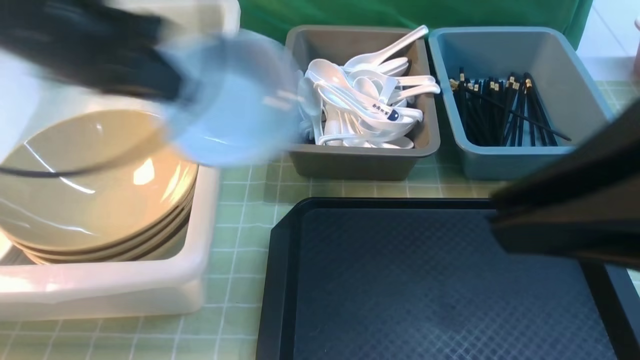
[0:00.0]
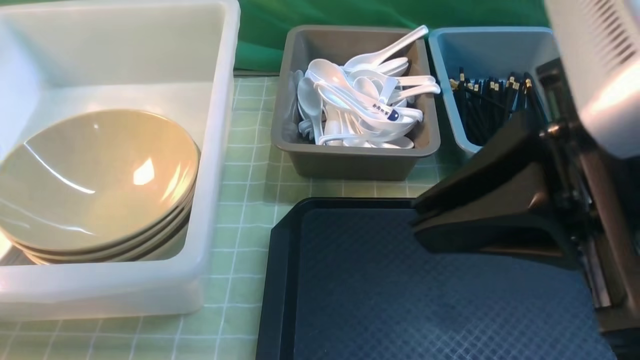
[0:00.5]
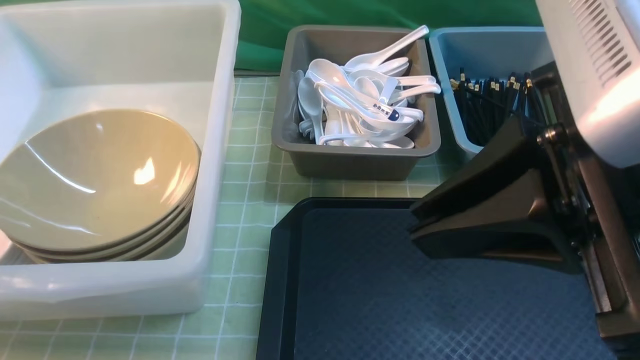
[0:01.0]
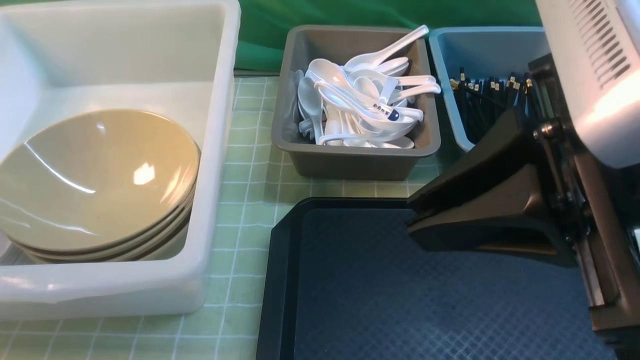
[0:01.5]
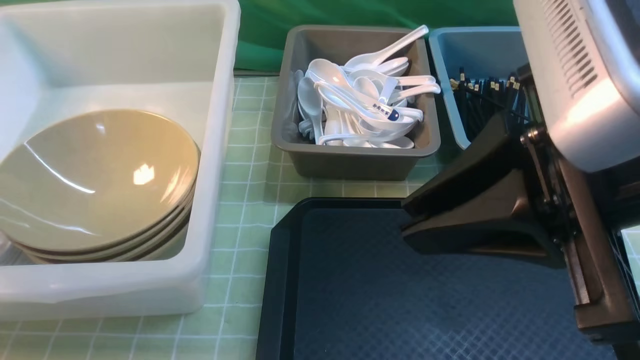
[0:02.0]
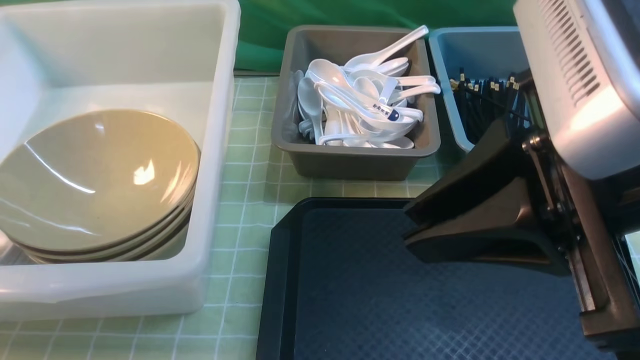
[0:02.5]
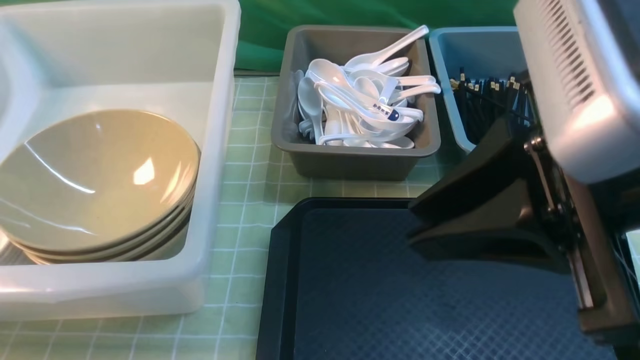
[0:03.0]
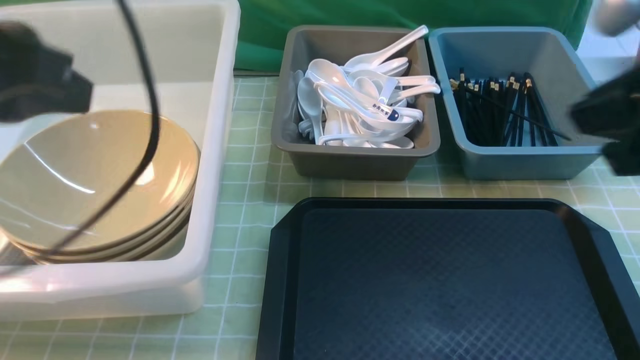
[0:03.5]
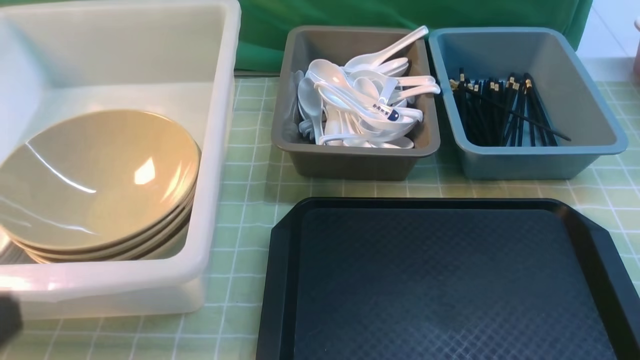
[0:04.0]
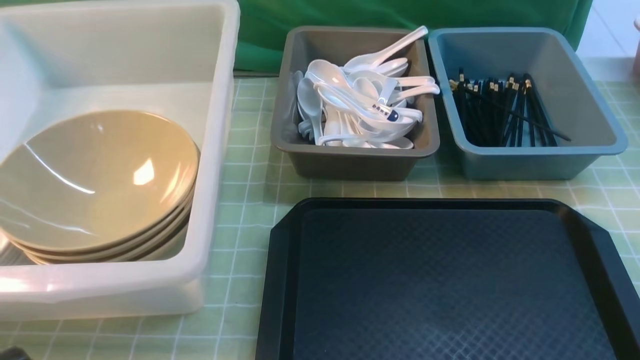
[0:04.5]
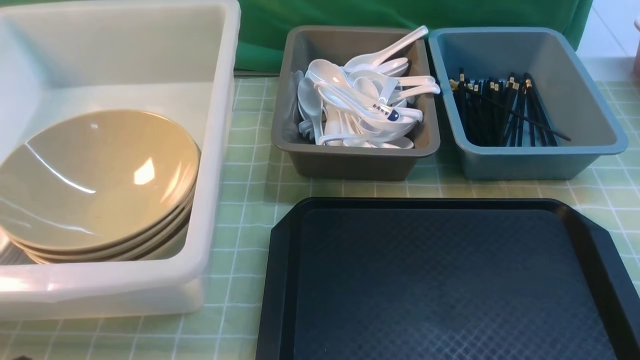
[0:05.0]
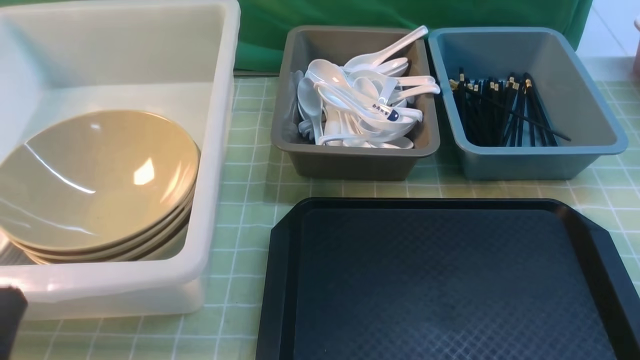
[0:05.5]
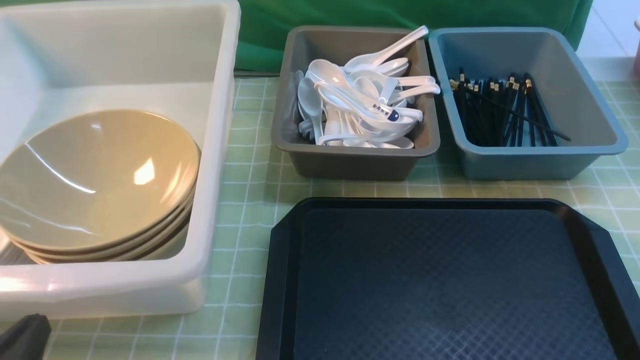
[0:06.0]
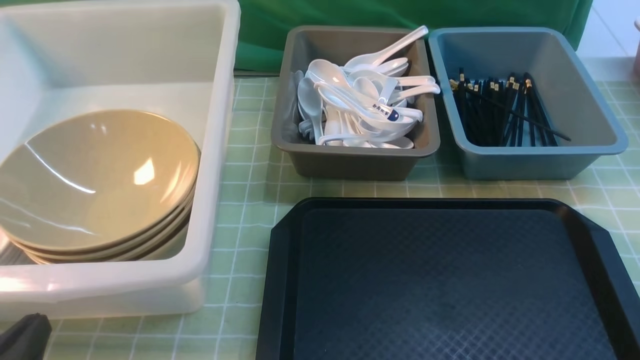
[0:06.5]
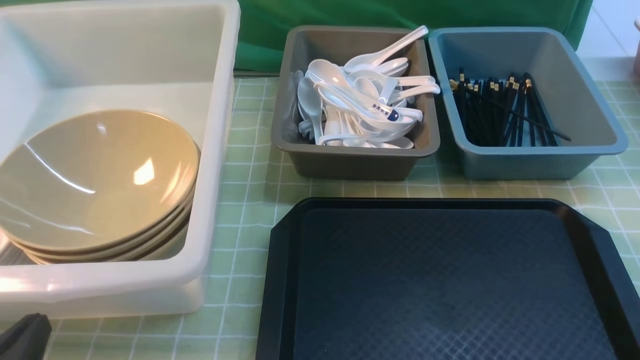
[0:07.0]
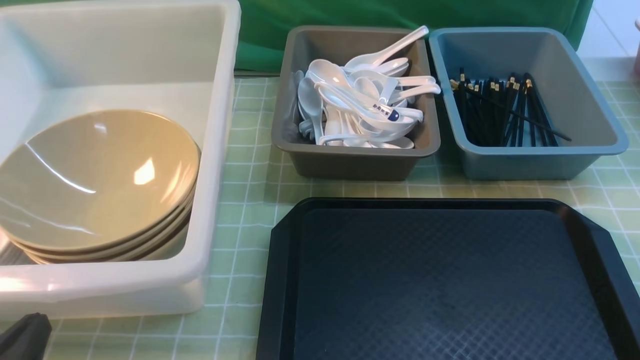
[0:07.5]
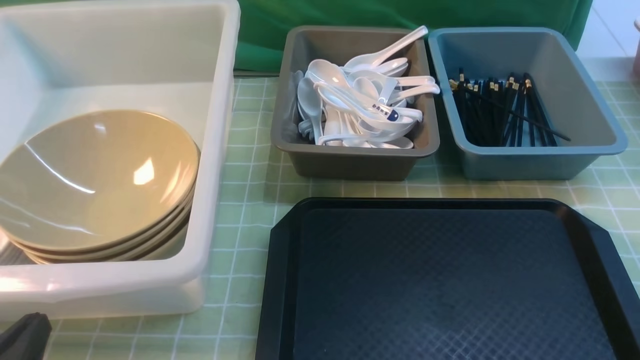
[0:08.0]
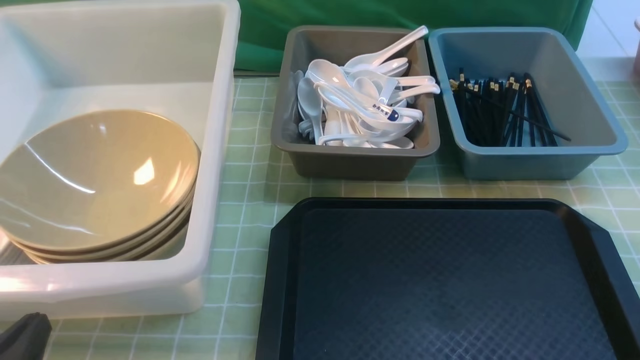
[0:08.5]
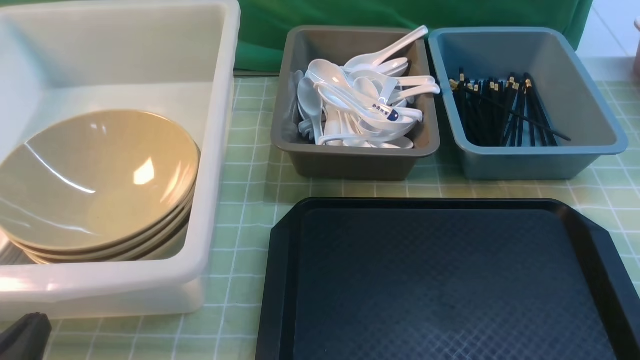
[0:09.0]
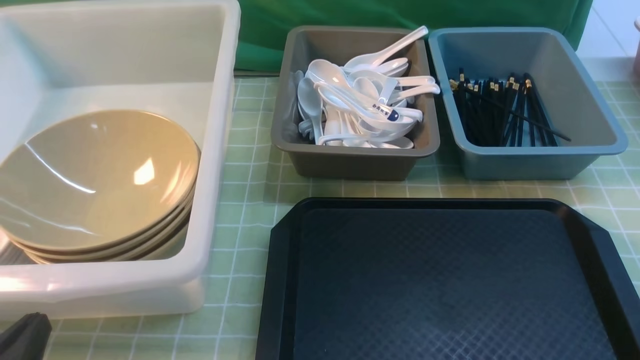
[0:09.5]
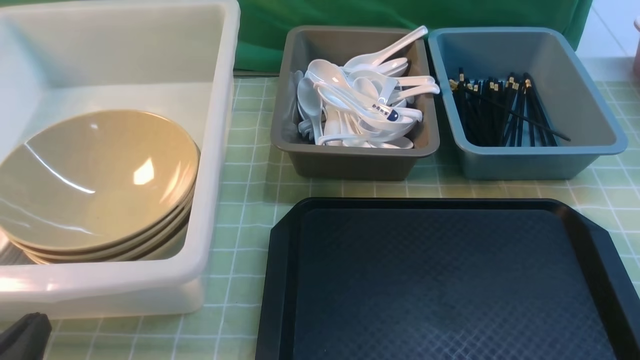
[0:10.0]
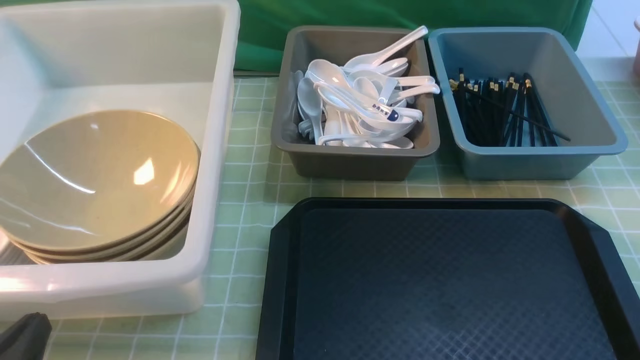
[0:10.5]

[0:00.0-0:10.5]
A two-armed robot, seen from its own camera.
Task of the whole recording: on green table put chopsticks spoon bowls plates into blue grey white boxes.
Step, 0:00.0 to 0:01.5: use the left arm to put the plate into the large storage box on the left.
0:00.0 to 0:02.0: The left gripper moves to the left, some 25 cm. Meanwhile the right gripper ends up approximately 5 cm from where it was.
0:02.0 to 0:04.0: The right gripper heads to the right, backward and downward, covering roughly 20 cm. The left gripper moves backward and to the right, about 30 cm, and opens and closes again.
0:04.0 to 0:06.5: The left gripper travels downward by some 20 cm.
0:08.5 to 0:10.5: Neither gripper changes place.
